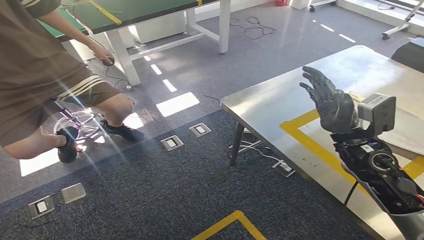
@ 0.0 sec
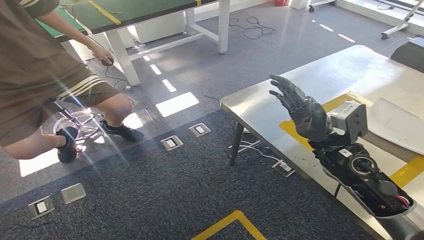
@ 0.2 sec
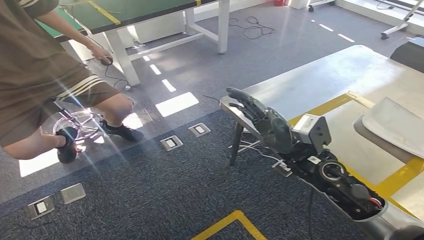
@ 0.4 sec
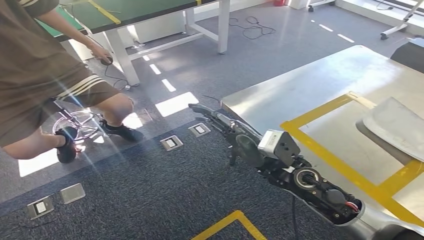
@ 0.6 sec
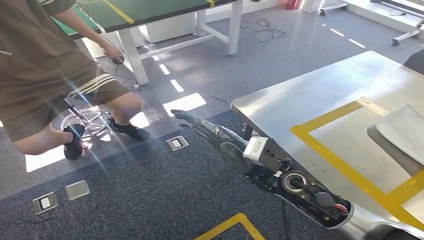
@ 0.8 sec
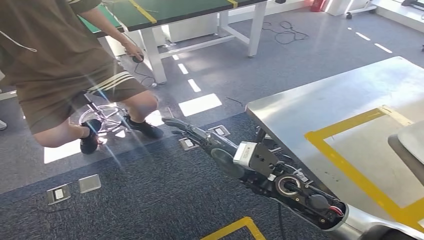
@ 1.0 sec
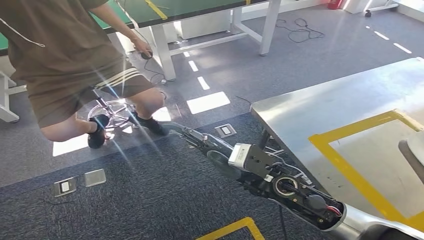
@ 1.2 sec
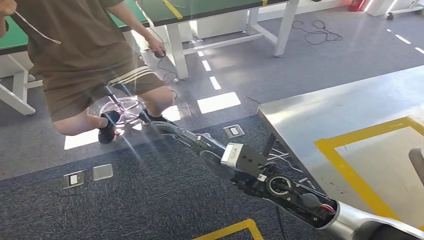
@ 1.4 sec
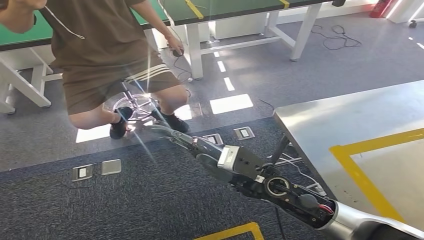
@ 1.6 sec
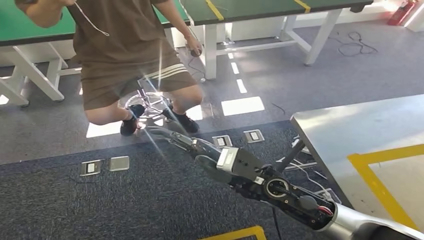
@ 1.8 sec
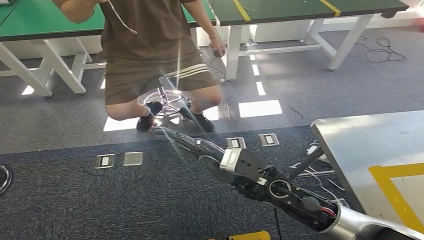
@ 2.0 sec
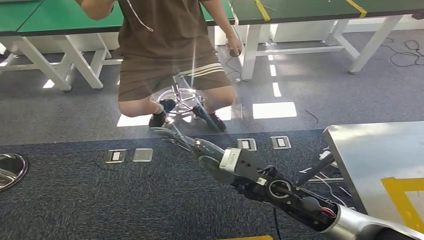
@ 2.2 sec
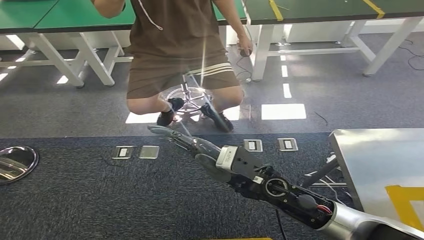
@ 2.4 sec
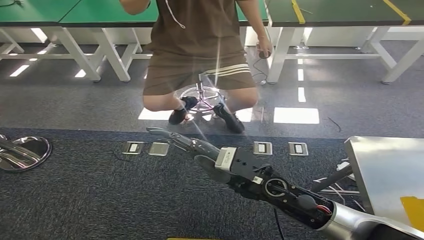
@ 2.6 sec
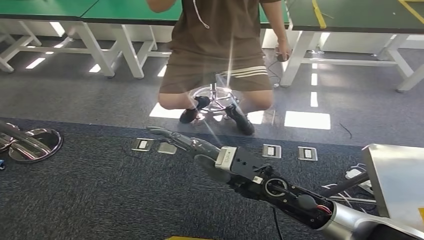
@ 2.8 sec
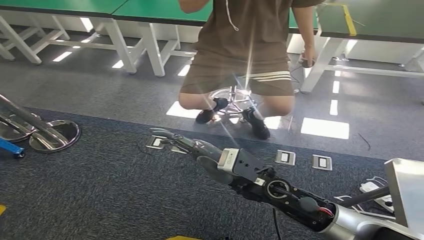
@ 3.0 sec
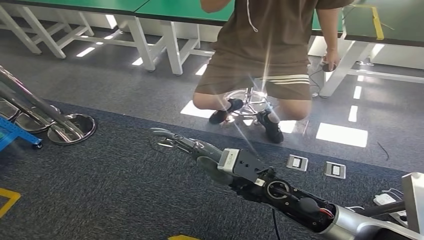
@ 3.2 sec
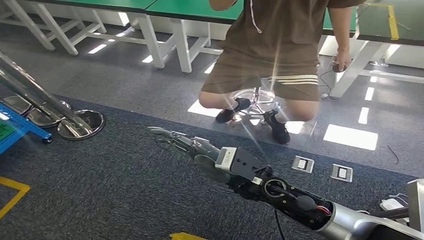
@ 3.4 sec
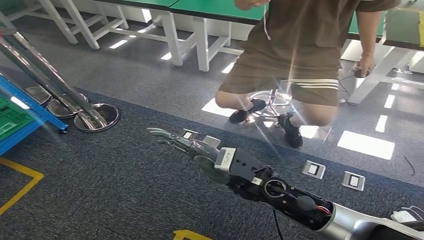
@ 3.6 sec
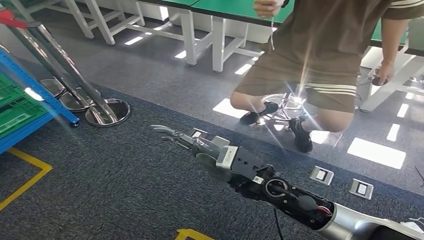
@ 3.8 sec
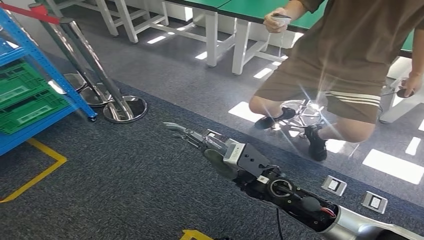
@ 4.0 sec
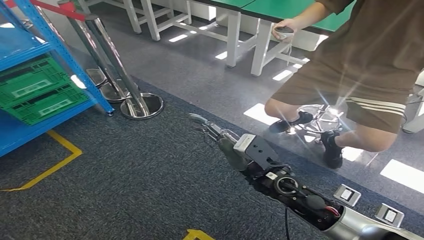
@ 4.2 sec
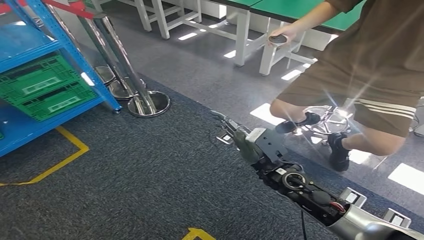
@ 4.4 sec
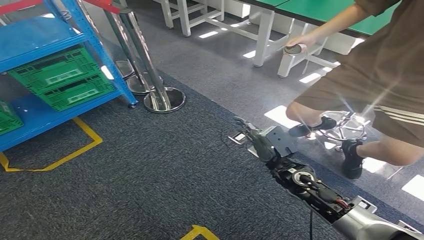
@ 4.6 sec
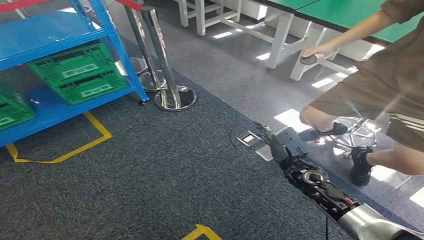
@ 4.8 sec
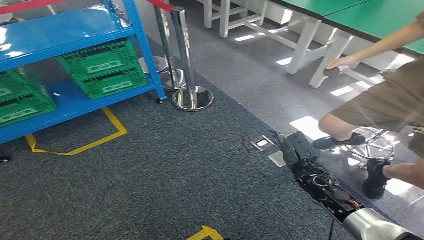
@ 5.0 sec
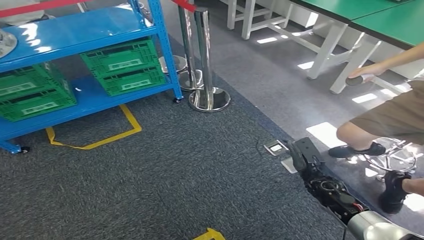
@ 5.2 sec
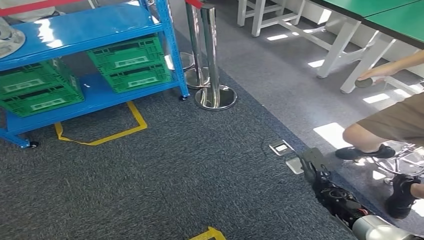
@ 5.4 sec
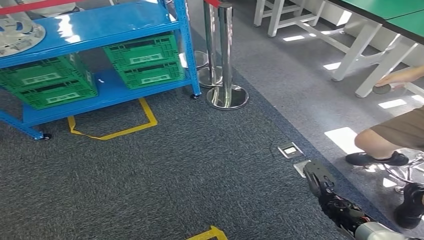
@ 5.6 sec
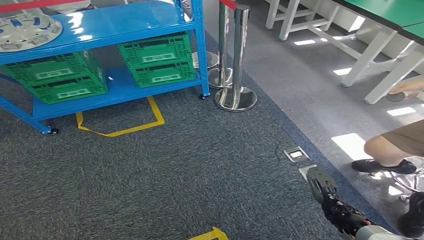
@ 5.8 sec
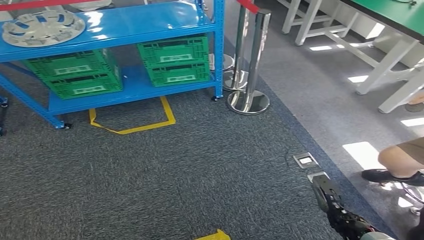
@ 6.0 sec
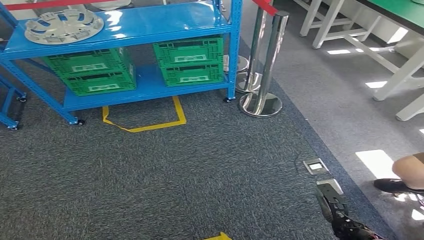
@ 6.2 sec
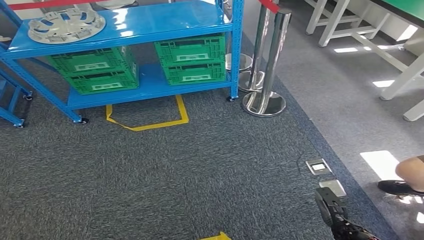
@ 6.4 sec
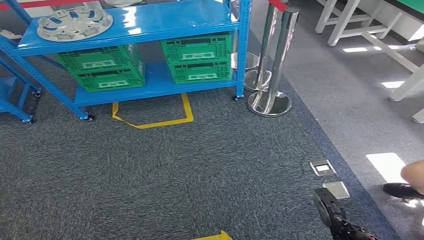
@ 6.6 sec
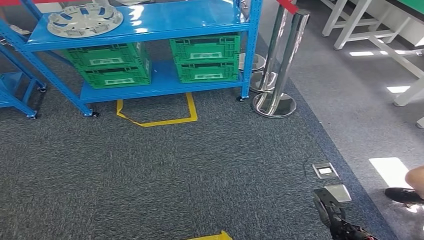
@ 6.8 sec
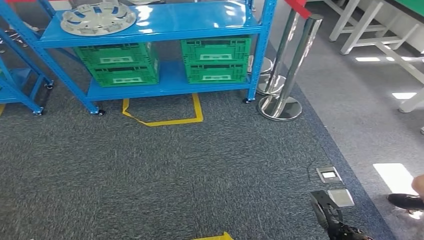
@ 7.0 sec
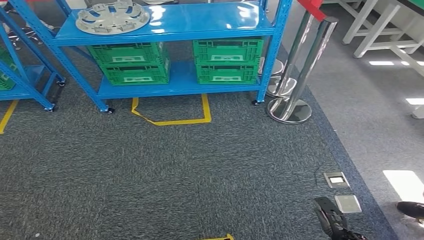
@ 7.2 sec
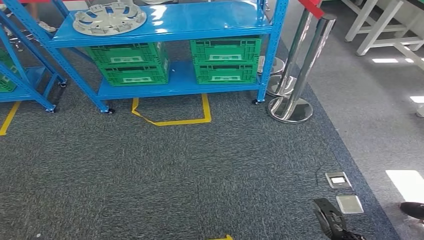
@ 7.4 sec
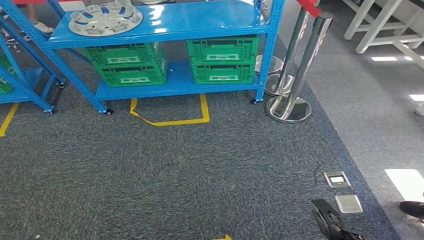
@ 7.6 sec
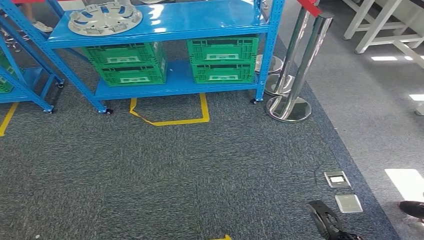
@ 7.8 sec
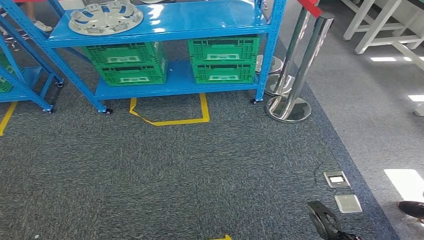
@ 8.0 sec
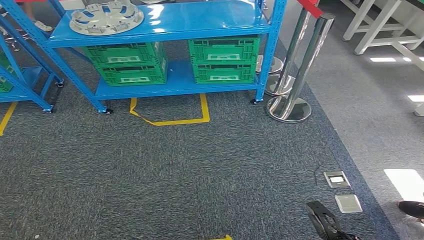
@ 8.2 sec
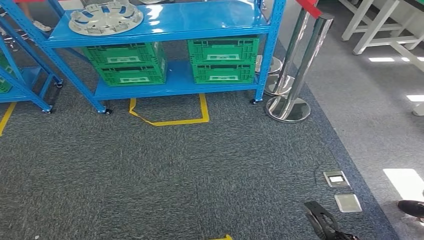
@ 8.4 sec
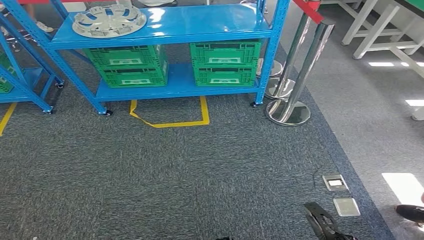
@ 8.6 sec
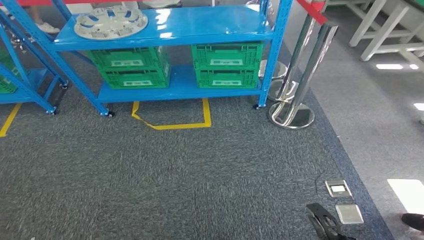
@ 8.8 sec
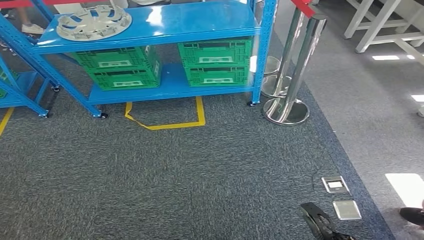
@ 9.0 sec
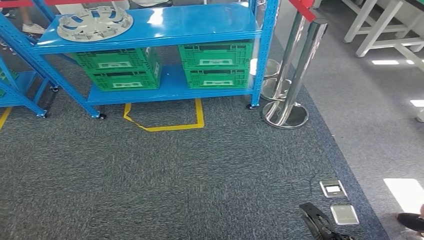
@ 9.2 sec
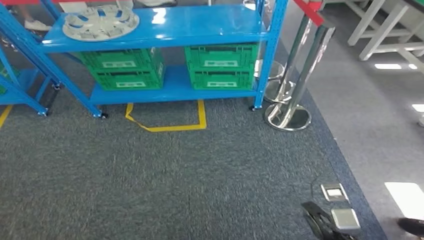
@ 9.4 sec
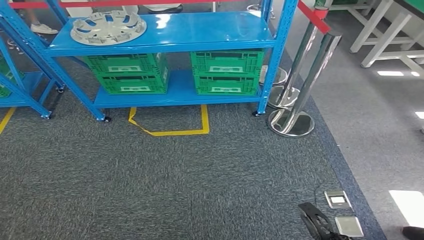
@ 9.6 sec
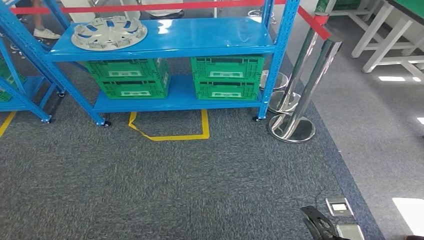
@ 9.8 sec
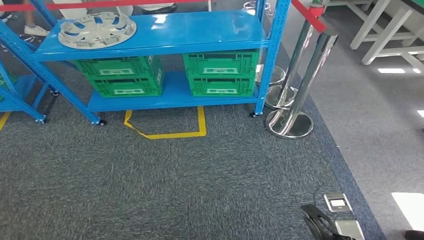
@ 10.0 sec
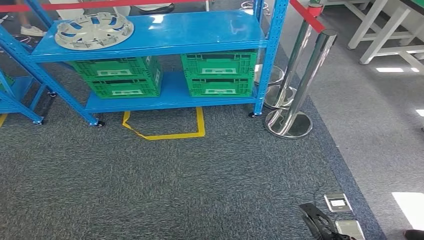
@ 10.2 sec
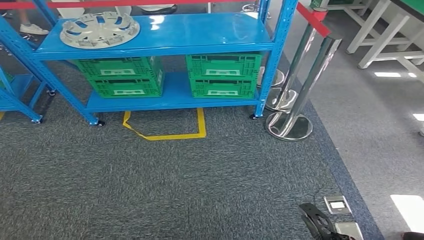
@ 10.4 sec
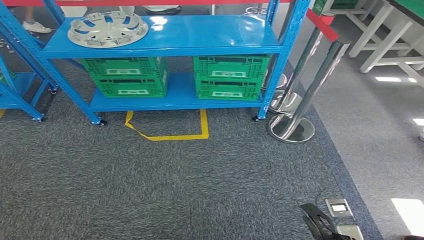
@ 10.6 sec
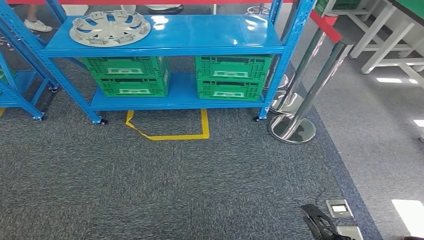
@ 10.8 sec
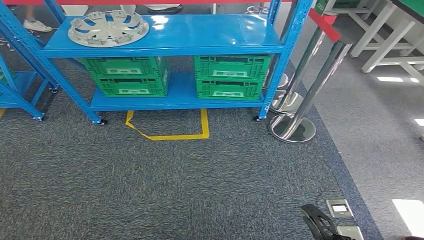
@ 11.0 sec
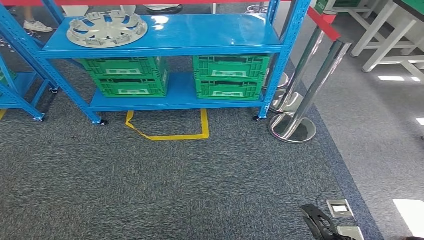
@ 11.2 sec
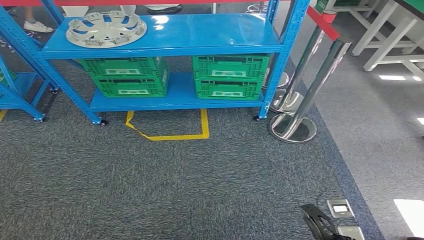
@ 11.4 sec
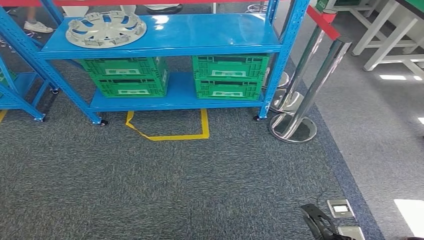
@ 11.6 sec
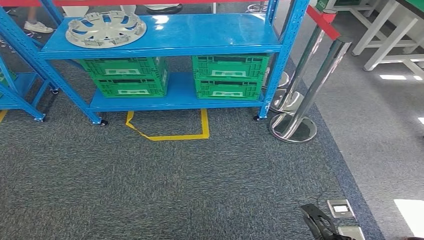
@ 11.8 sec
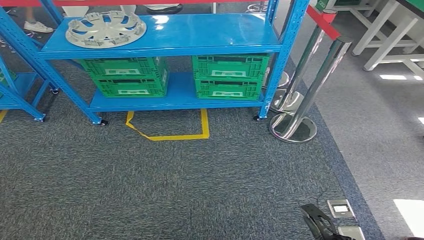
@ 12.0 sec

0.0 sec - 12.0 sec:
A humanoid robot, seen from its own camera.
7.6 sec - 9.0 sec: There are only small adjustments of the hands.
10.4 sec - 12.0 sec: Both hands stay put.

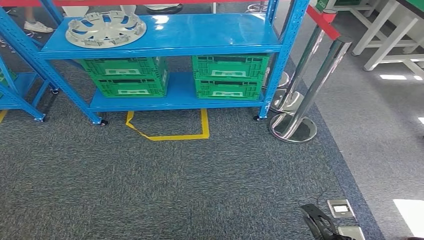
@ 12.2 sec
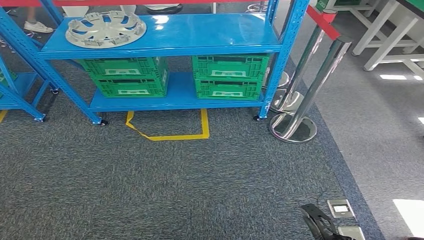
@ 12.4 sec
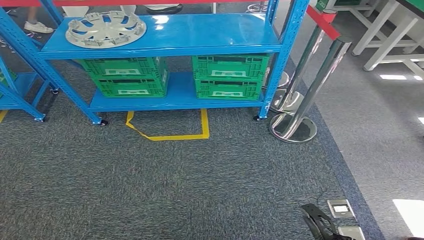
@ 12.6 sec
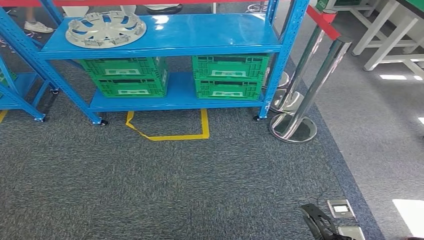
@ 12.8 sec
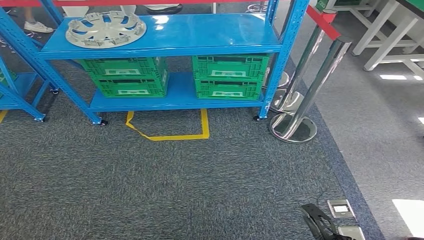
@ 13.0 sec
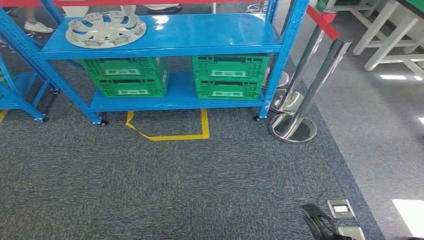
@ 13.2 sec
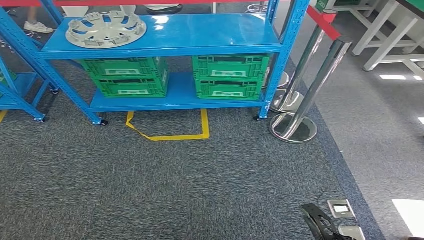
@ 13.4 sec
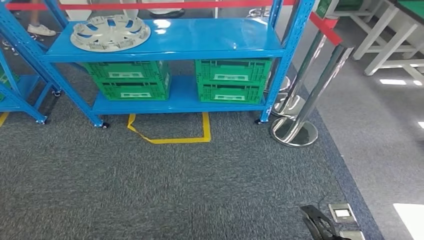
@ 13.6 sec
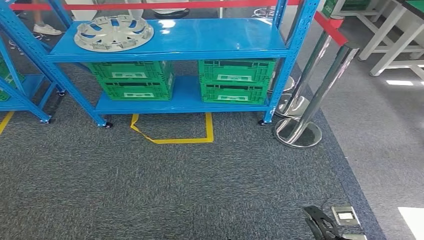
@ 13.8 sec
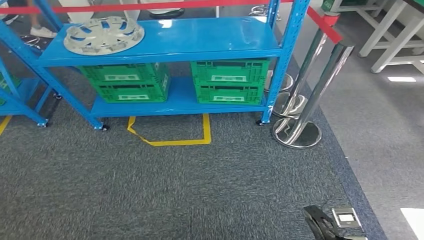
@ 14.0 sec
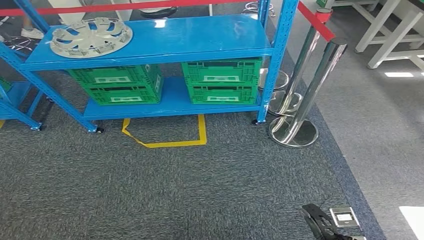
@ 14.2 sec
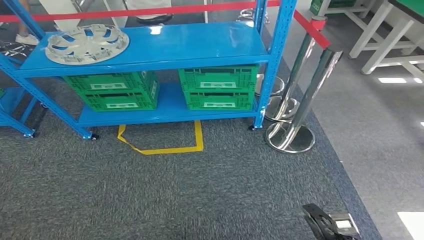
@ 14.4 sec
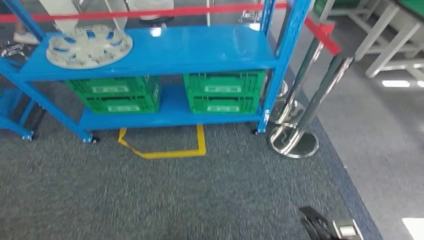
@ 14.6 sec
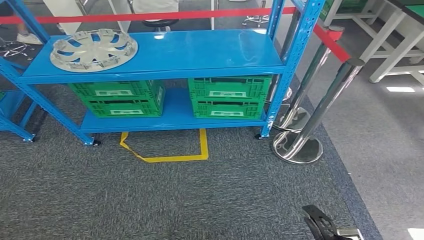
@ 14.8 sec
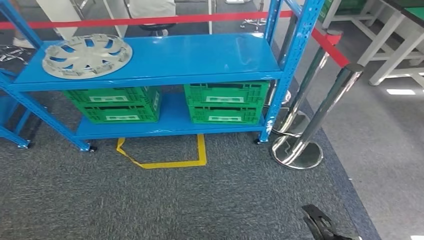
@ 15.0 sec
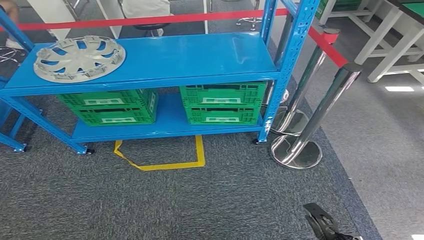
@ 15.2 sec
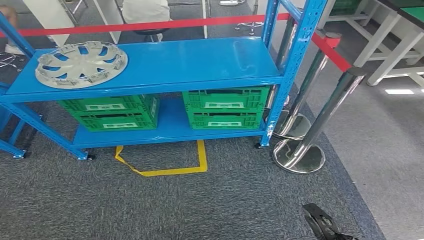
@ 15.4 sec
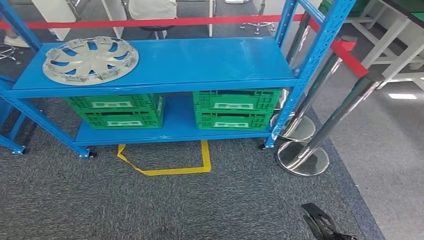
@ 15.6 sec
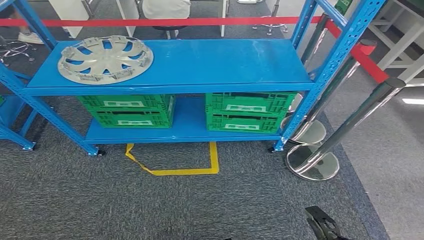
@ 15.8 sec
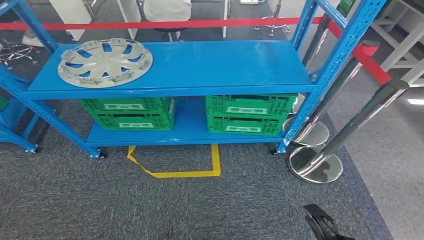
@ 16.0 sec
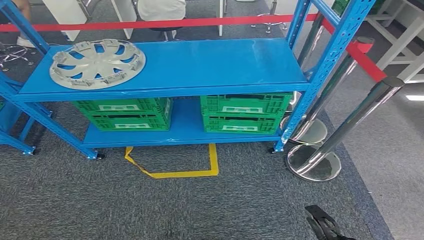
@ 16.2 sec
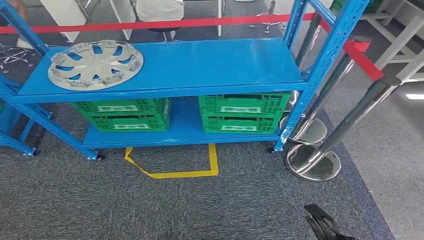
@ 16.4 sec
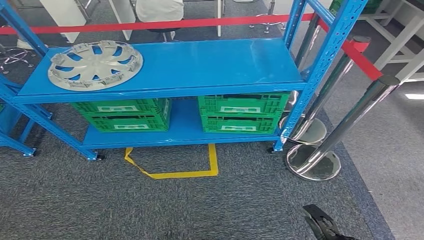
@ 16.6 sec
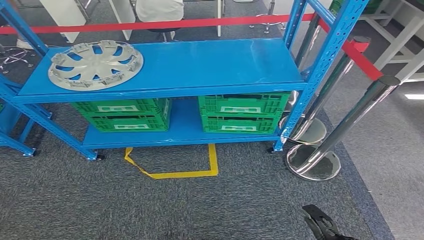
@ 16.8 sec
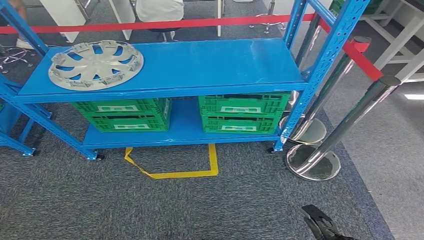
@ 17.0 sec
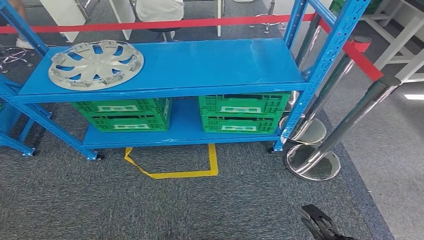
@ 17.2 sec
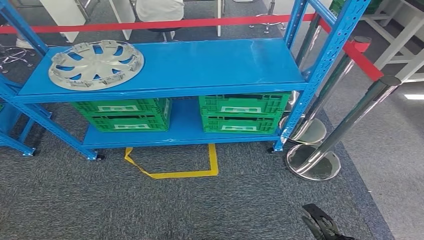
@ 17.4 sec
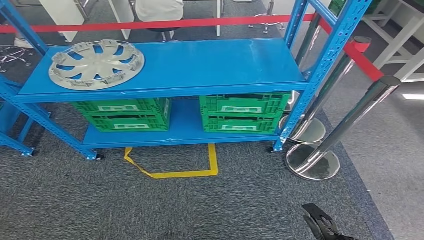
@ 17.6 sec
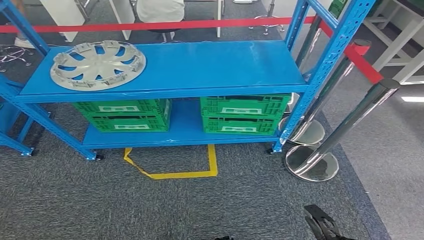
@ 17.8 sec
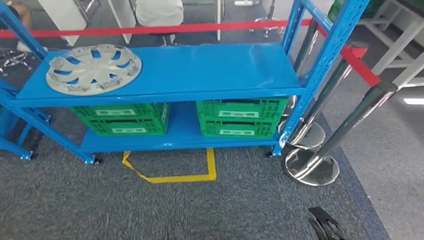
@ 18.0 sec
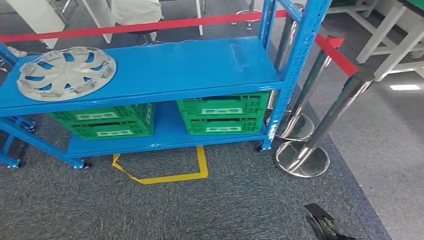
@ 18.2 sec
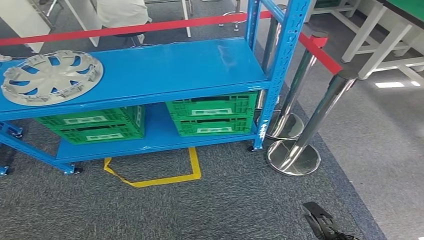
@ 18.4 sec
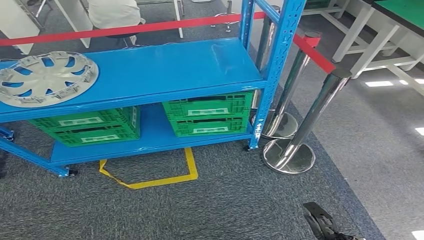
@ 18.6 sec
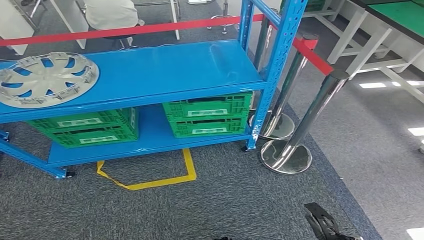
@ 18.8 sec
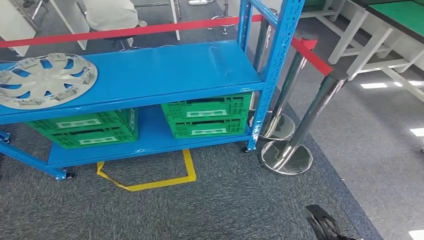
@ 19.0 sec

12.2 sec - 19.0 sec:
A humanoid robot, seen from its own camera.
Step, 12.2 sec - 19.0 sec: Move to the initial position of the workbench.
12.2 sec - 13.6 sec: Both hands stay put.
16.2 sec - 17.6 sec: Both hands stay about where they are.
